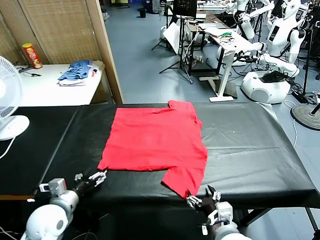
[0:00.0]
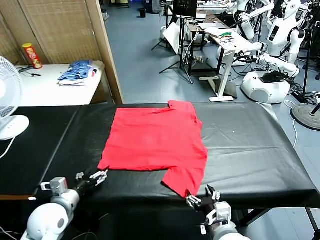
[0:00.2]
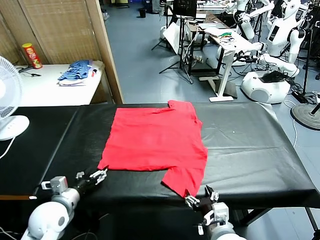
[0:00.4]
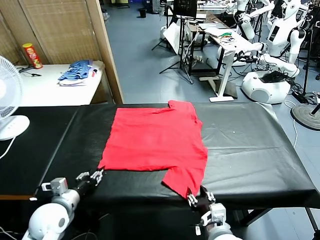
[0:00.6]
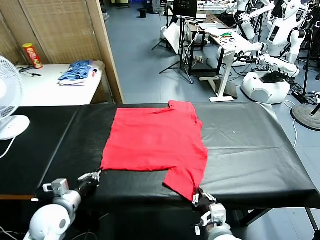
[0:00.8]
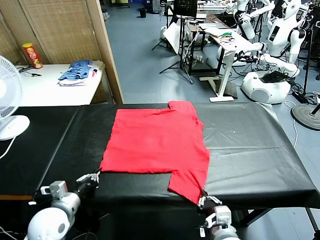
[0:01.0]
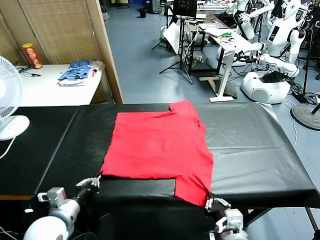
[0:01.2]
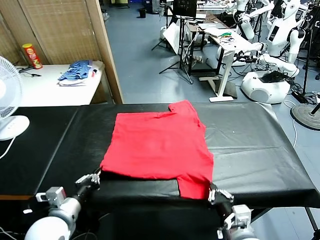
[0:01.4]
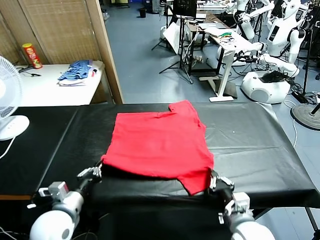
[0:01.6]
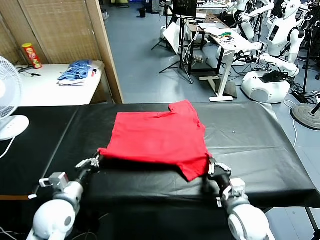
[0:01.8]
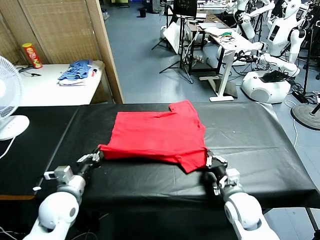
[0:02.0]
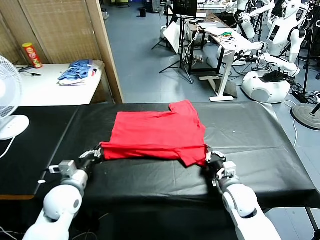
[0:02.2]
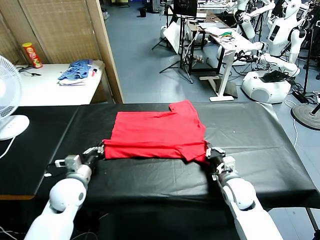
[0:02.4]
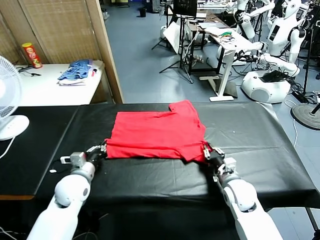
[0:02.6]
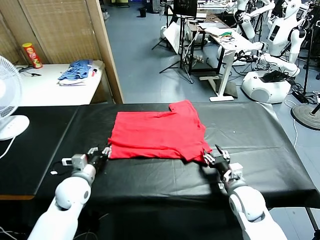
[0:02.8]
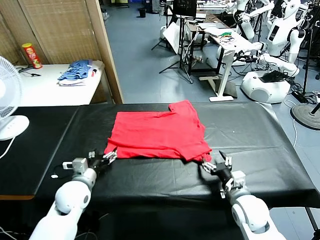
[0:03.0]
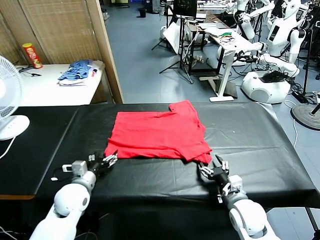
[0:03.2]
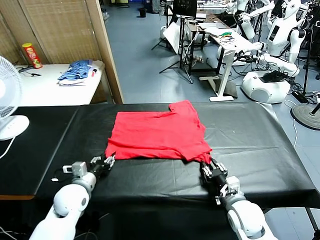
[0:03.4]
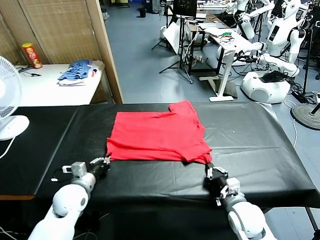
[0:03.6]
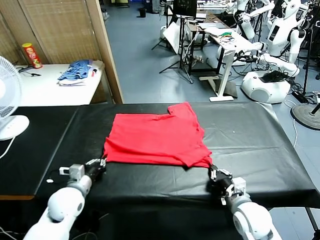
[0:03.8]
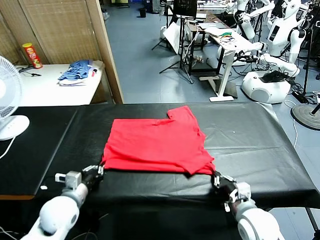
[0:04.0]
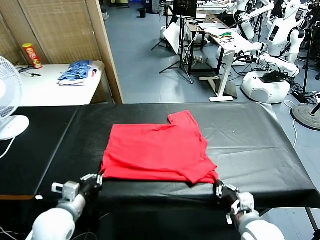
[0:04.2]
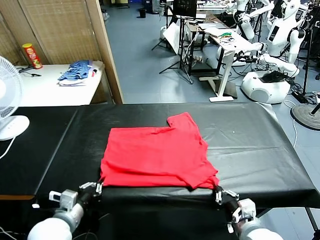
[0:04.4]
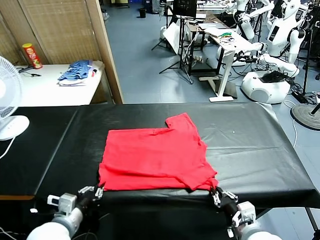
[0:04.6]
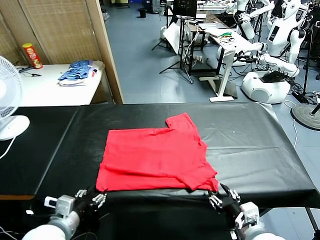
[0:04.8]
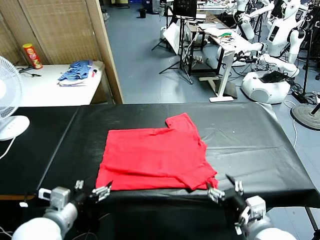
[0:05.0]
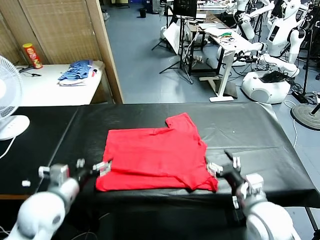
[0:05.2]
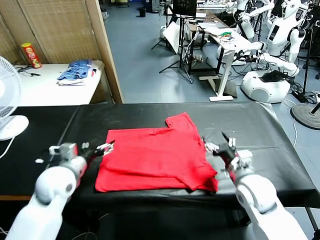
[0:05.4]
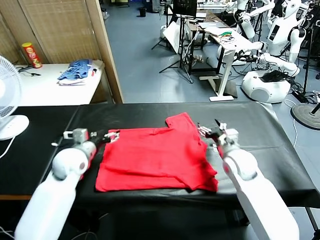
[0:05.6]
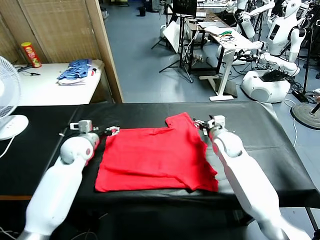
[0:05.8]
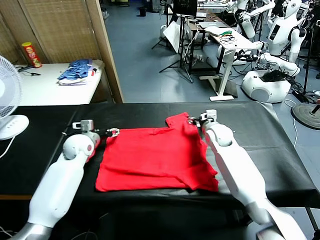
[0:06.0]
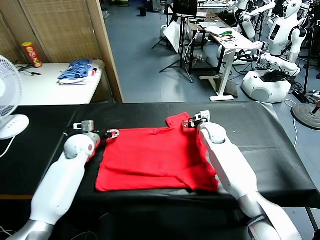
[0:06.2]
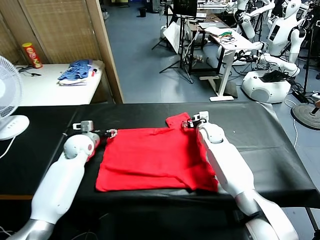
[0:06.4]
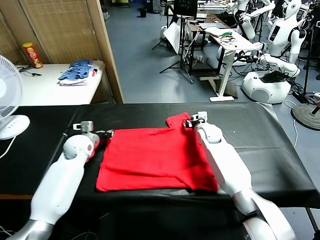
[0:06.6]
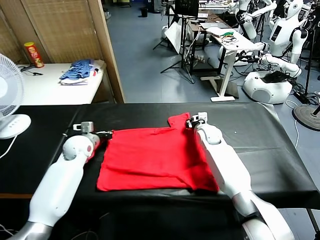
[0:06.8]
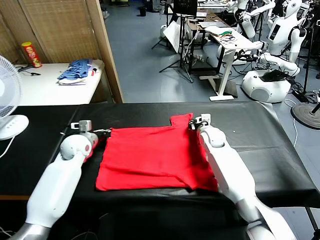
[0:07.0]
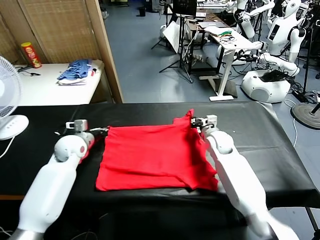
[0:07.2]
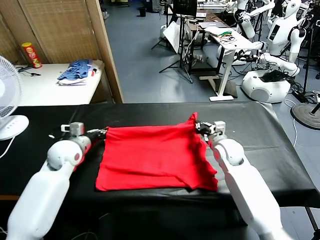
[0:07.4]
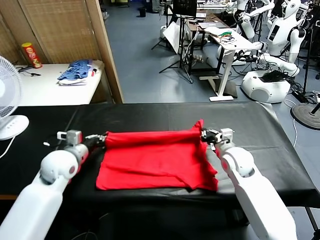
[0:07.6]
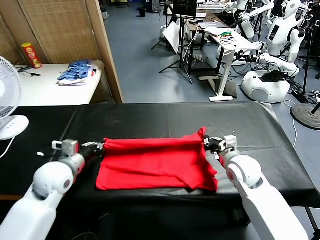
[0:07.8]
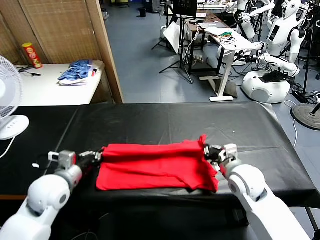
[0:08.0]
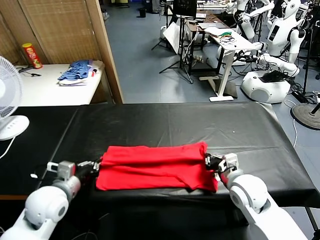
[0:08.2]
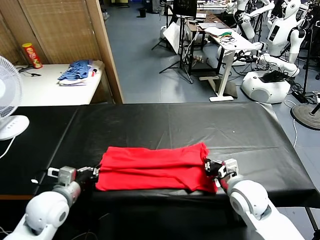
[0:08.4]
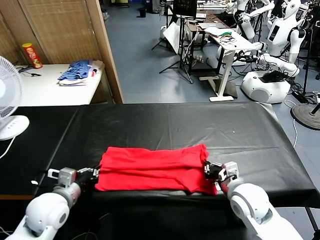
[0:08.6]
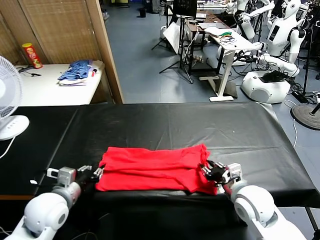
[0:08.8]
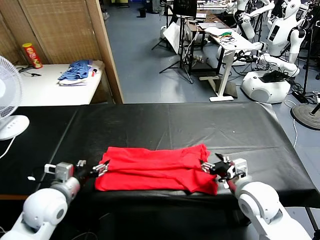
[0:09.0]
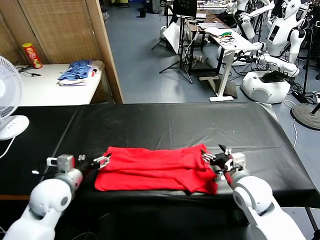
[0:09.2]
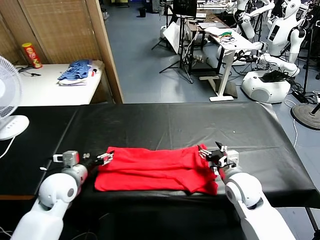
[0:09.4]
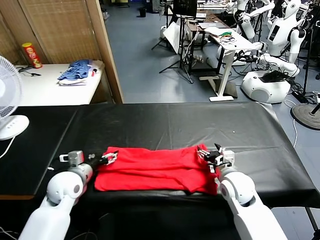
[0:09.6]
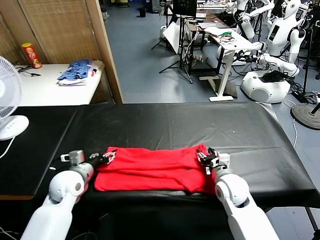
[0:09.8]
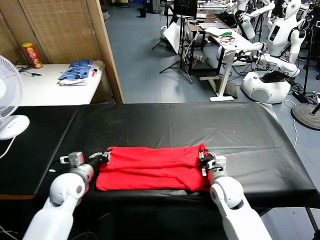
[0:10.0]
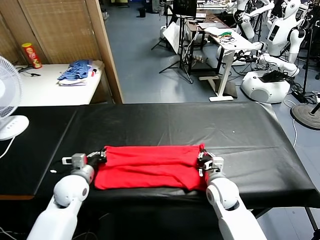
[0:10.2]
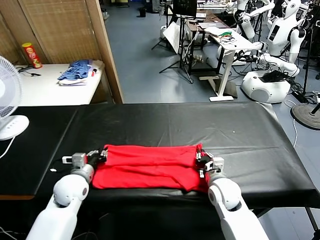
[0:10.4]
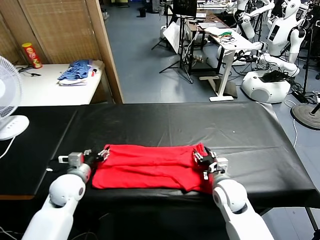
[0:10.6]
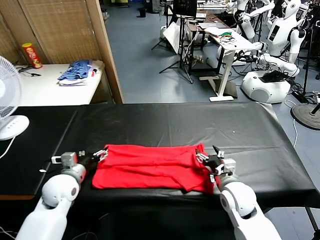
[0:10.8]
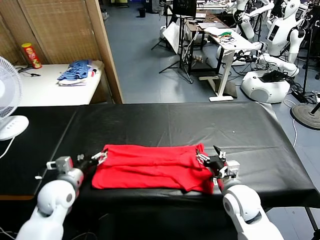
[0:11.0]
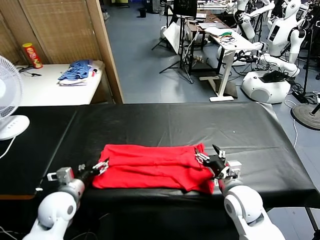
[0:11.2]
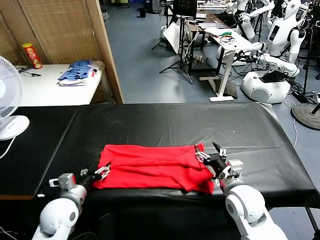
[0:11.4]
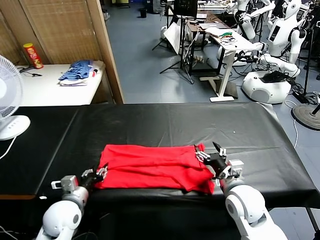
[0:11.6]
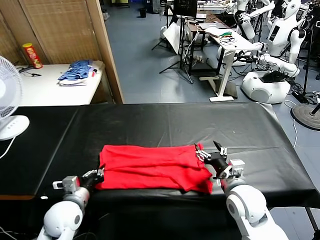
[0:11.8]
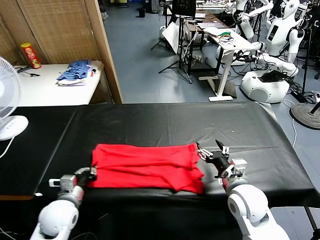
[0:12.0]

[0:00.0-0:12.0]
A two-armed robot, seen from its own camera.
Task of the whole recording: fold and organize the clothes.
Step, 0.0 to 1.0 s: use both grippers simultaneously to clamp the lower edge of the clothing fabric.
Step, 1.2 to 3.0 s: use both grippers to drag the lower edge of the fabric forward and fold it over the upper edge.
Step, 3.2 to 4.8 s: Drag the clothes downward with both gripper.
Step, 5.0 to 6.8 s: use both grippers simultaneously to clamp the upper edge of the clothing fabric.
Step, 7.0 to 8.8 s: use both grippers to drag the upper edge of the fabric backward and fold it over the lower edge.
Step, 9.0 to 11.8 s: use the left gripper to clamp the left edge of the fabric.
1.6 to 3.0 s: The right gripper goes forward and returns, about 10 cm each way, and opens; the left gripper heads forward, covering about 10 cm, and opens its fingers.
3.0 to 4.4 s: The right gripper shifts roughly 10 cm backward and upward, and closes its fingers. The left gripper moves backward, about 10 cm, and closes its fingers.
4.4 to 6.0 s: Both grippers travel together forward, some 35 cm. The right gripper opens up. The left gripper opens its fingers.
6.0 to 7.6 s: The left gripper travels backward by roughly 10 cm, and closes. Meanwhile the right gripper shifts roughly 20 cm backward, and closes up.
7.6 to 9.0 s: The two grippers go some 10 cm backward. The right gripper opens its fingers; the left gripper opens up.
9.0 to 10.4 s: The right gripper shifts some 10 cm downward, and closes up; the left gripper goes roughly 10 cm downward and forward, and closes.
10.4 to 12.0 s: The left gripper shifts approximately 10 cm backward, and opens, then closes once more; the right gripper shifts approximately 5 cm upward, and opens.

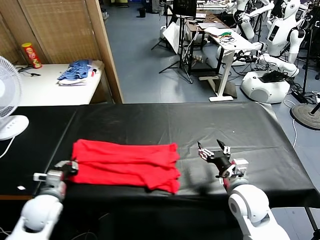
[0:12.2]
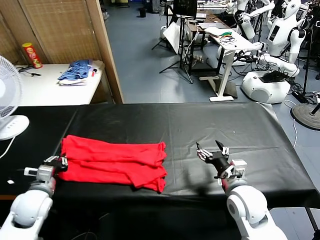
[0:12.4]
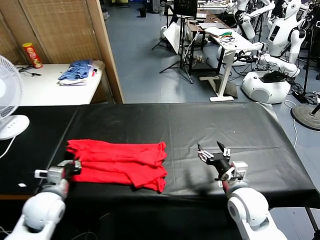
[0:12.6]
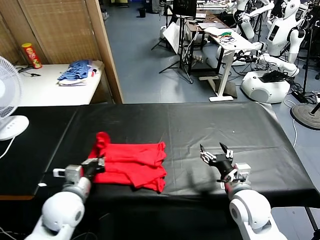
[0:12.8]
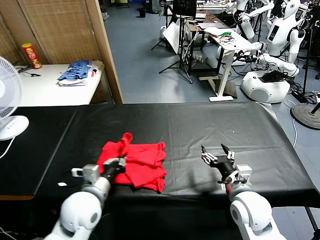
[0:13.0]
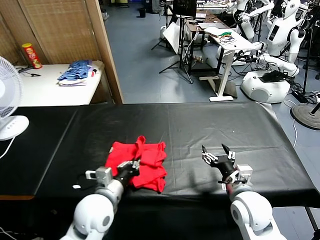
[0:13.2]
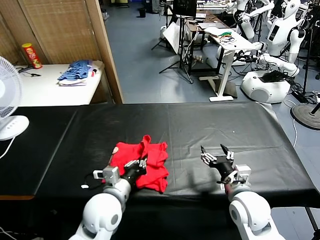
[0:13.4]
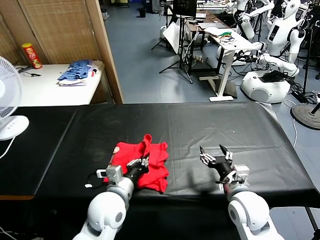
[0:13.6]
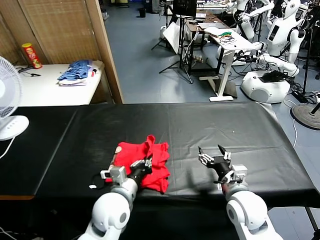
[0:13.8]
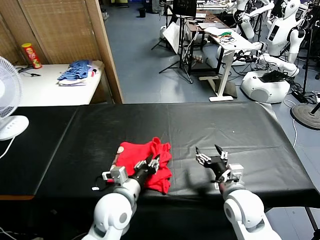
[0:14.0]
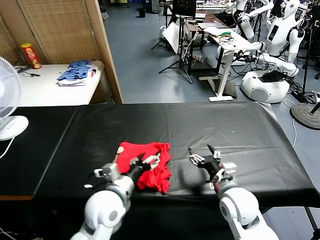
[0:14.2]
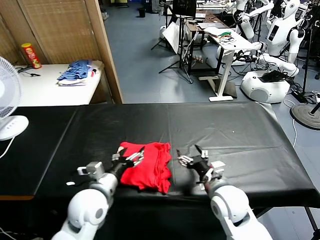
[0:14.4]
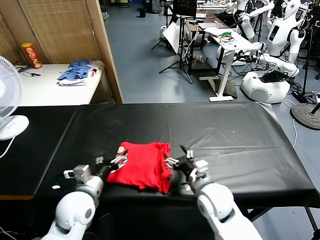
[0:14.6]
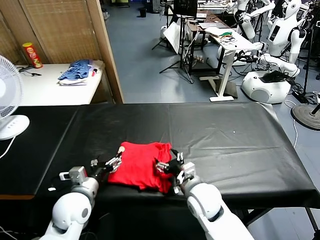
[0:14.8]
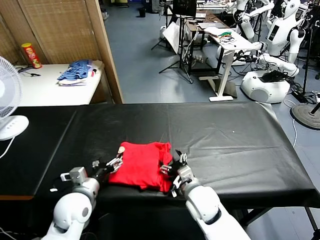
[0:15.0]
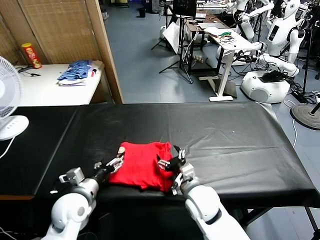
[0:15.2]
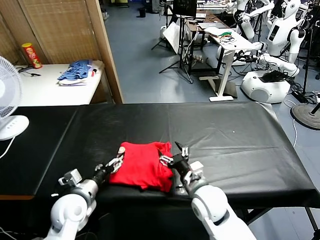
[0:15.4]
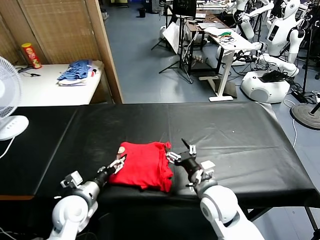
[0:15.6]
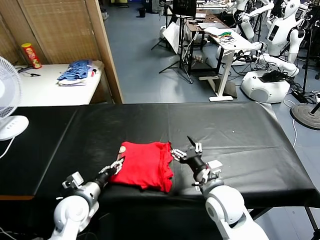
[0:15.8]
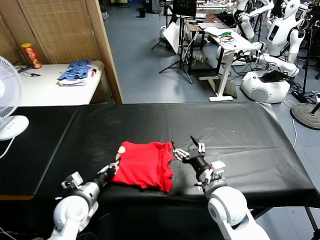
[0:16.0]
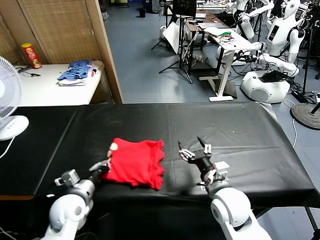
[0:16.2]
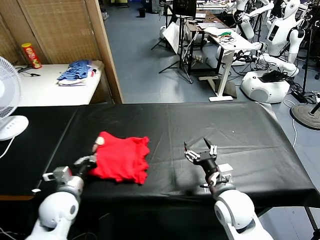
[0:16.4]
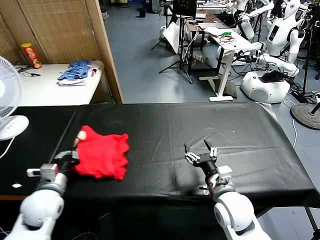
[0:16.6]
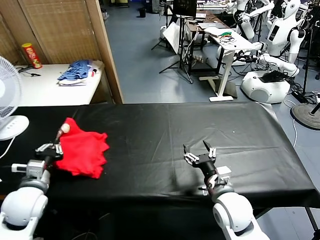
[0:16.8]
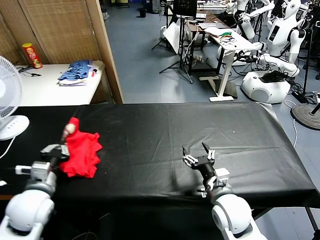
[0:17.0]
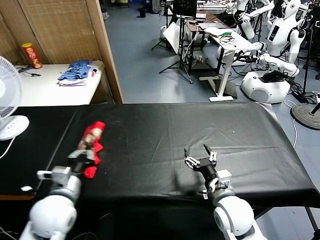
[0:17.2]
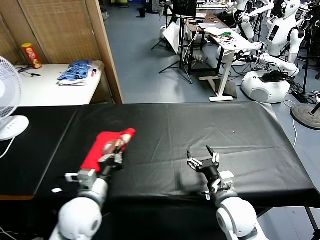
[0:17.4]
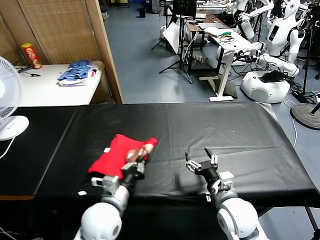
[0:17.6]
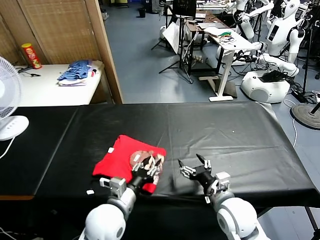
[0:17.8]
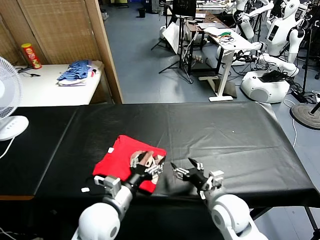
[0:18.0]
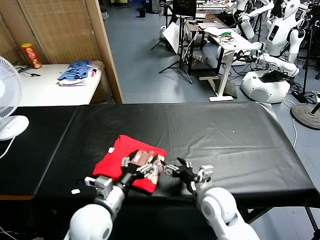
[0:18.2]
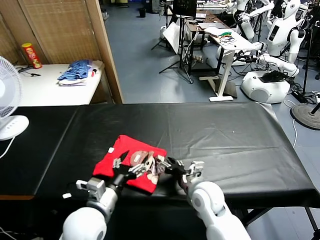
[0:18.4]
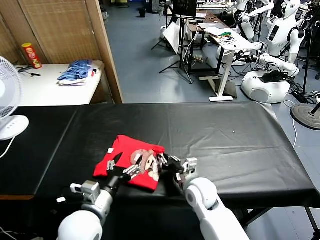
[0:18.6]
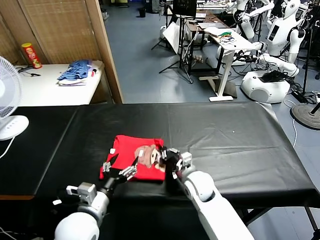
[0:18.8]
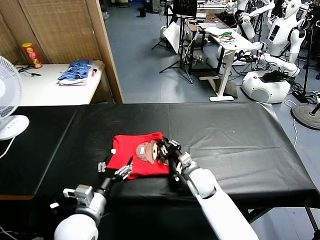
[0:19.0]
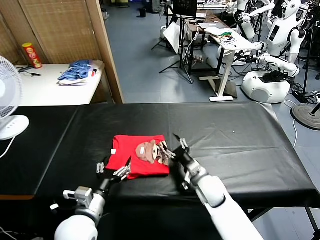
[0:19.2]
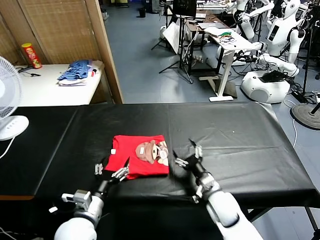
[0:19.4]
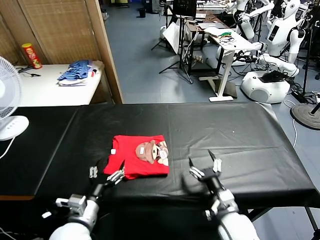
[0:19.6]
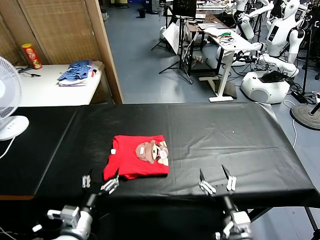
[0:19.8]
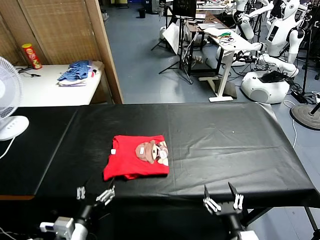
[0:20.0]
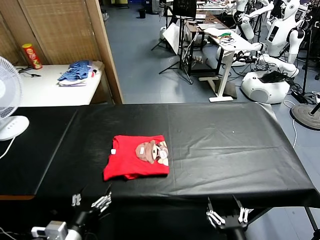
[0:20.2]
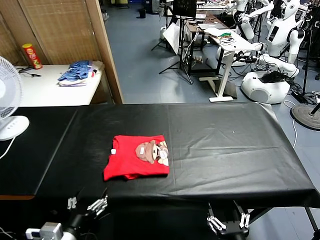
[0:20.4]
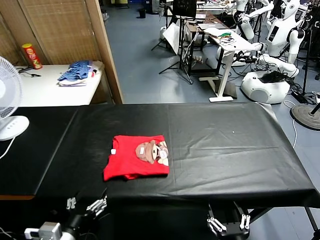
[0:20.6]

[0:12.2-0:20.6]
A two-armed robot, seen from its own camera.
Task of the whole recording: fold and organize the clothes.
Step, 12.2 to 14.2 s: use the left gripper to drag the left edge of the fabric to the left and folds it over the right edge.
Step, 14.4 to 17.8 s: Flip the folded clothes over with left gripper.
Step, 18.0 to 19.2 s: Drag the clothes to the center of the table.
12.2 to 13.6 s: The left gripper shifts some 20 cm to the right.
13.6 to 15.0 s: Both grippers travel together to the left, approximately 10 cm. The left gripper opens up.
15.0 to 16.4 s: The left gripper closes up. The right gripper travels to the right by some 10 cm.
16.4 to 17.8 s: The left gripper shifts some 15 cm to the right.
17.8 to 19.2 s: The left gripper is displaced to the left by approximately 5 cm, and opens up. The right gripper is displaced forward and downward by about 15 cm, and closes.
19.2 to 20.6 s: The right gripper moves backward, about 30 cm, and opens; the left gripper goes approximately 10 cm backward.

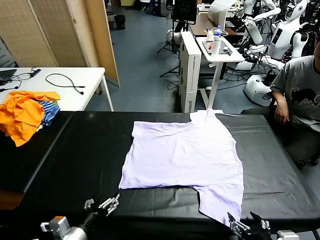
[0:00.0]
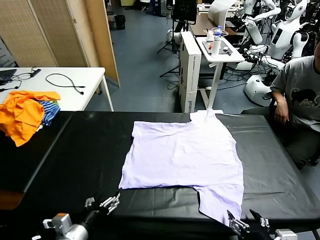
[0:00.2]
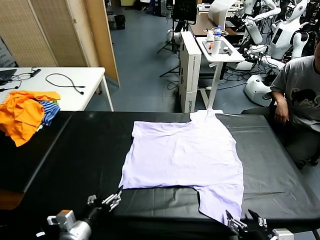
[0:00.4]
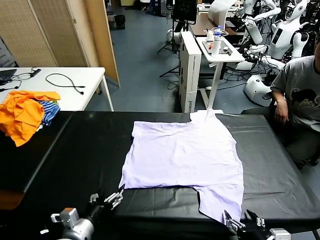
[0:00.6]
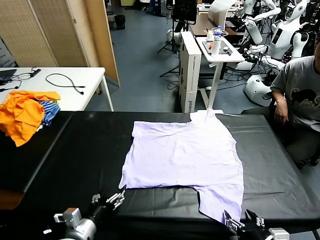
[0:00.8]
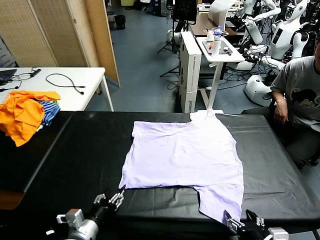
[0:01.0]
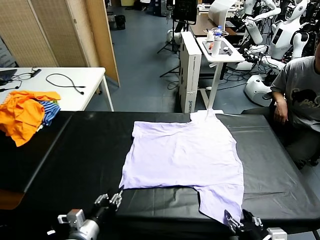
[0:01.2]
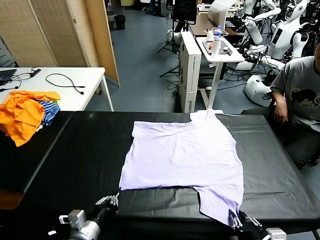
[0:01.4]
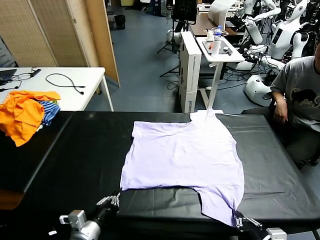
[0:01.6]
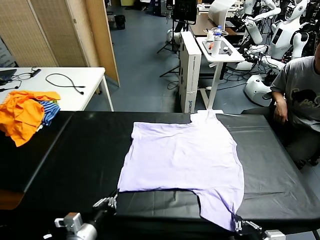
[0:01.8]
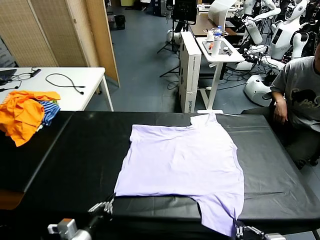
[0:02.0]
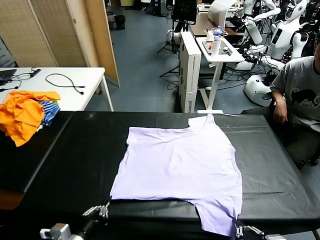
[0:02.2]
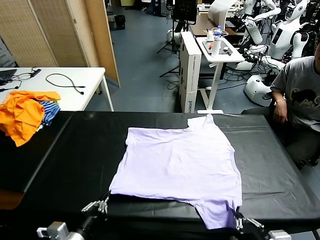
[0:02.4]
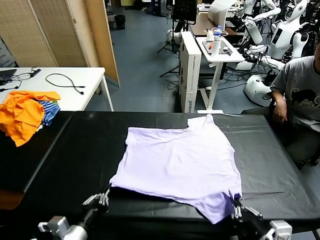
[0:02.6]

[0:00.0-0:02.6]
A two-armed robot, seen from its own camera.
Task of the whole recording: fold and organize the clothes.
Step, 0.0 to 1.6 s: use both grippers simultaneously to clamp the lower edge of the clothing fabric.
1.2 to 2.6 s: The right gripper shifts by approximately 5 cm.
